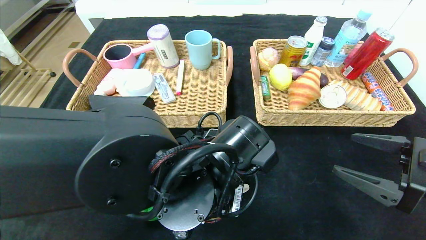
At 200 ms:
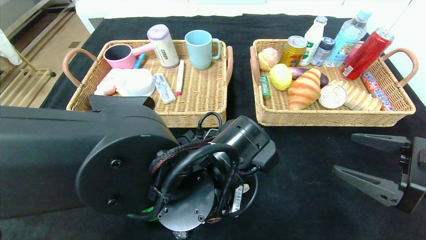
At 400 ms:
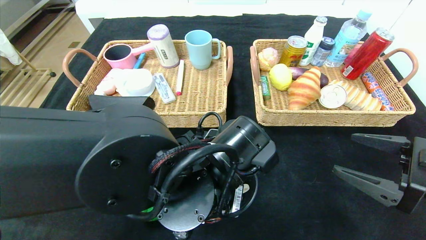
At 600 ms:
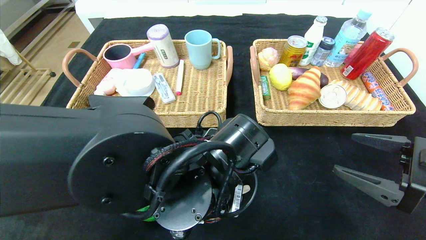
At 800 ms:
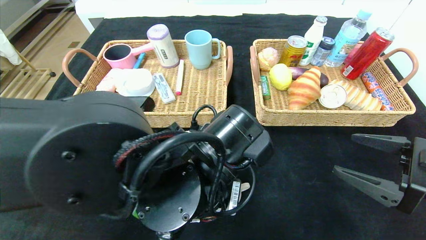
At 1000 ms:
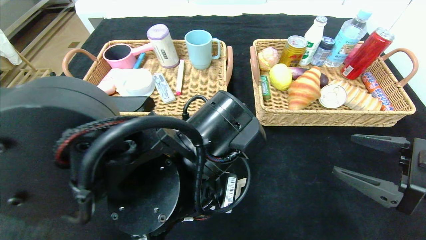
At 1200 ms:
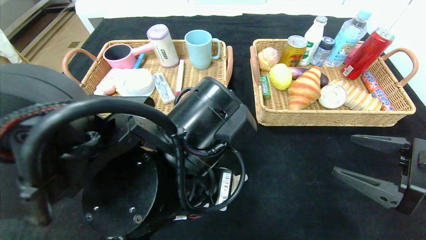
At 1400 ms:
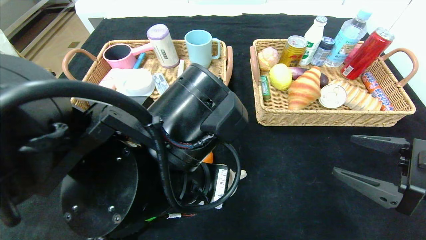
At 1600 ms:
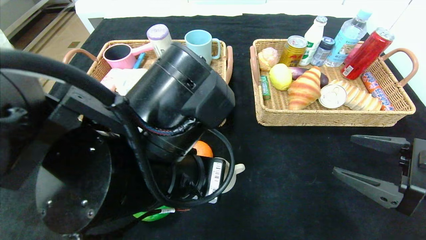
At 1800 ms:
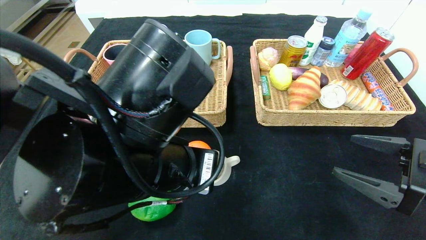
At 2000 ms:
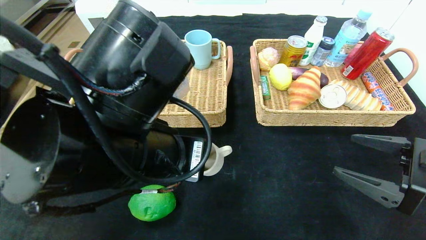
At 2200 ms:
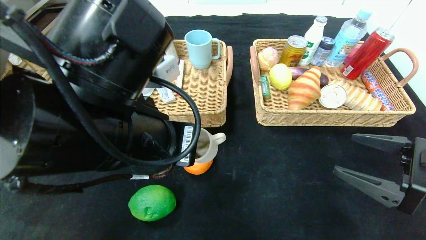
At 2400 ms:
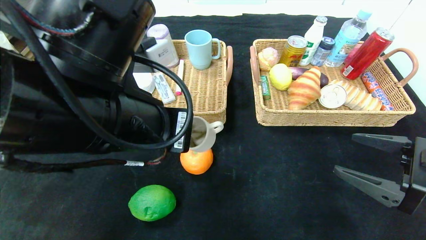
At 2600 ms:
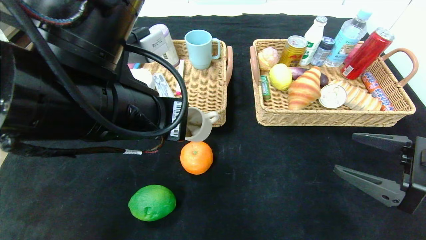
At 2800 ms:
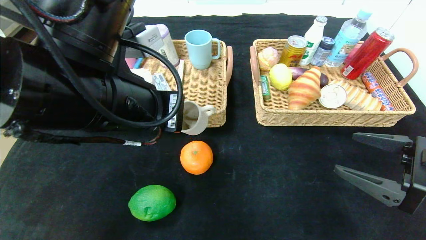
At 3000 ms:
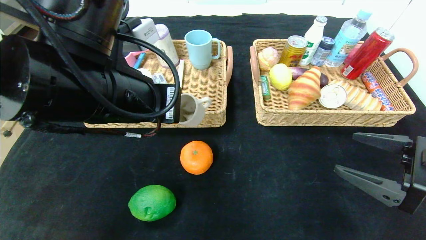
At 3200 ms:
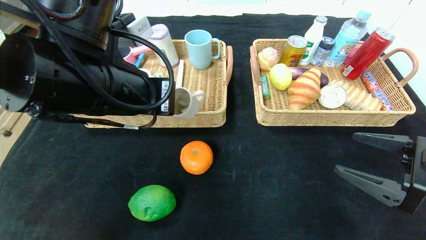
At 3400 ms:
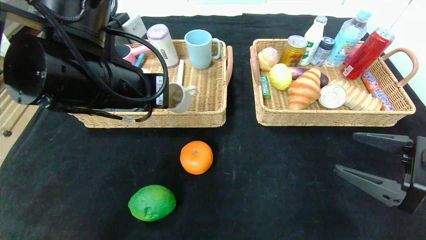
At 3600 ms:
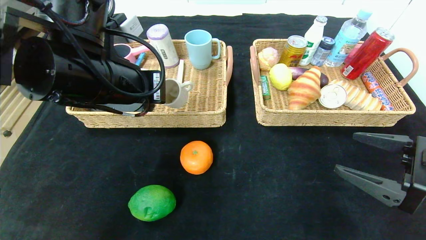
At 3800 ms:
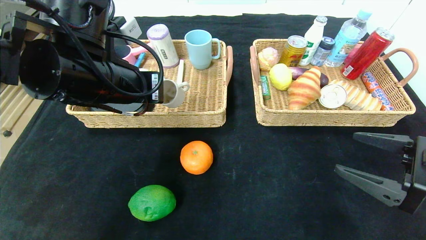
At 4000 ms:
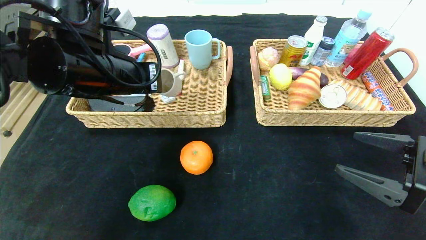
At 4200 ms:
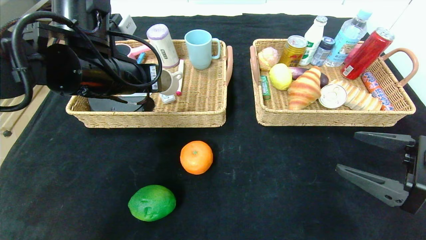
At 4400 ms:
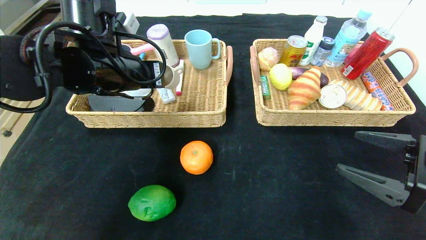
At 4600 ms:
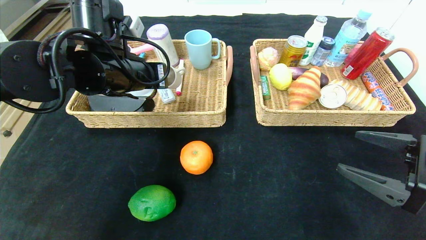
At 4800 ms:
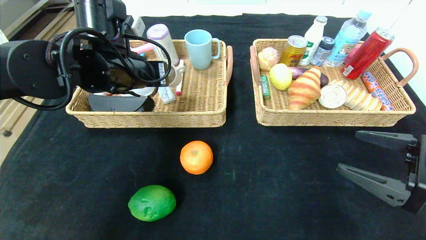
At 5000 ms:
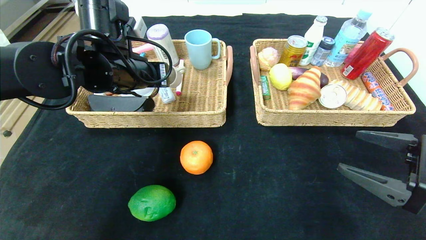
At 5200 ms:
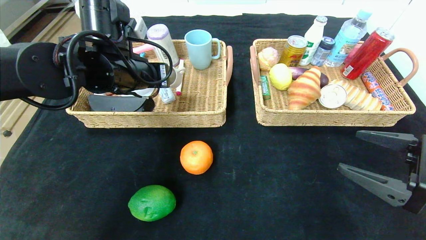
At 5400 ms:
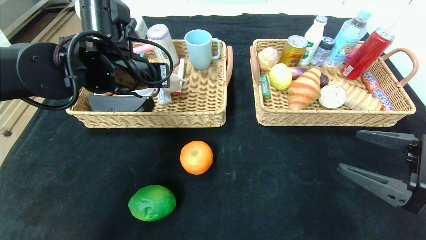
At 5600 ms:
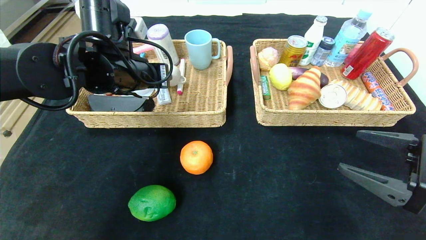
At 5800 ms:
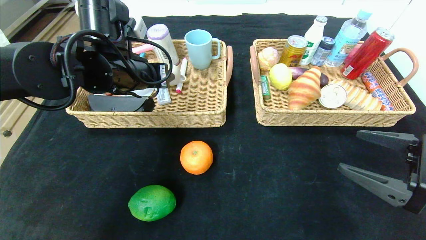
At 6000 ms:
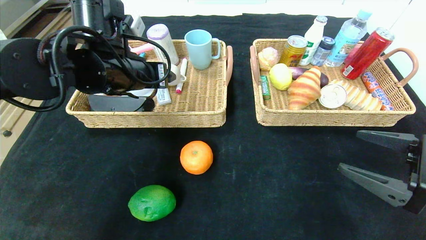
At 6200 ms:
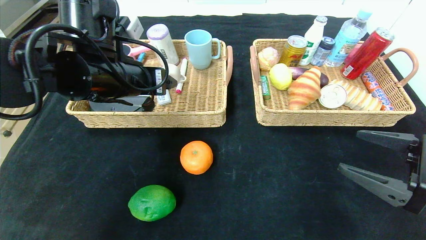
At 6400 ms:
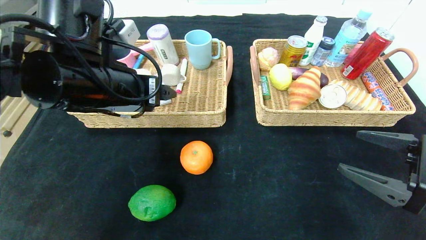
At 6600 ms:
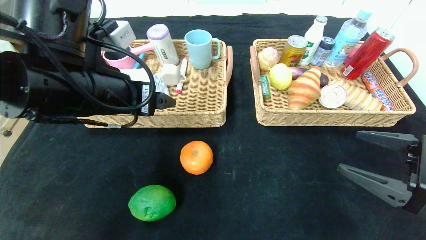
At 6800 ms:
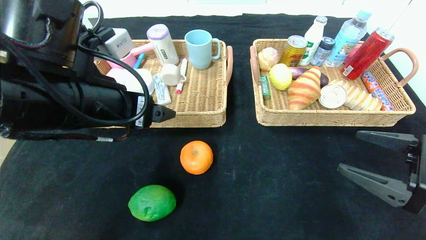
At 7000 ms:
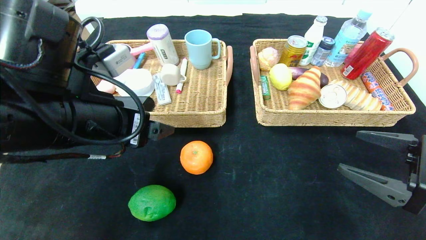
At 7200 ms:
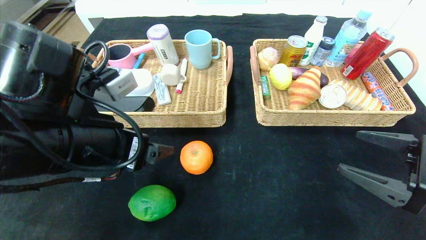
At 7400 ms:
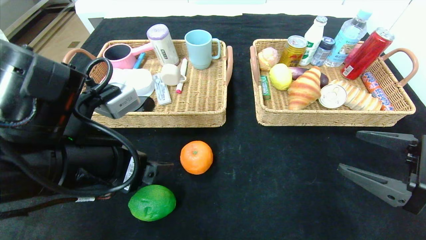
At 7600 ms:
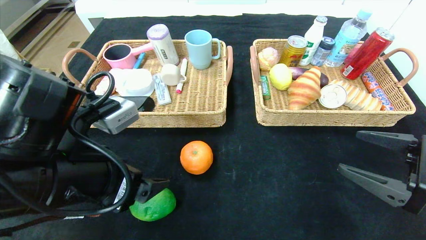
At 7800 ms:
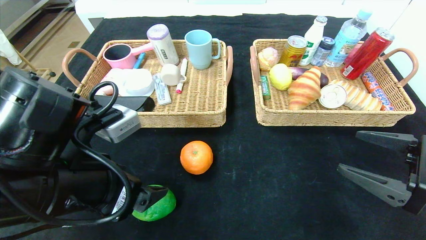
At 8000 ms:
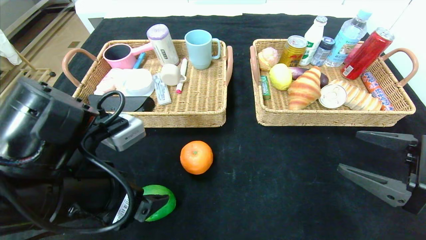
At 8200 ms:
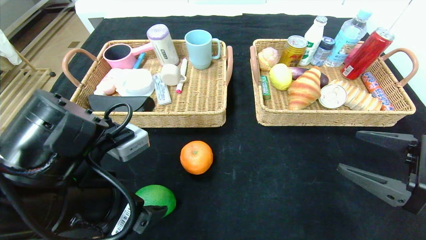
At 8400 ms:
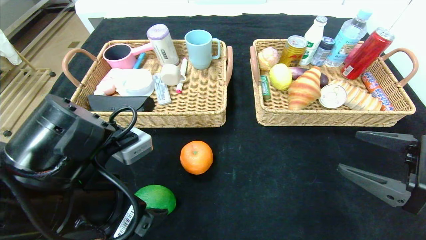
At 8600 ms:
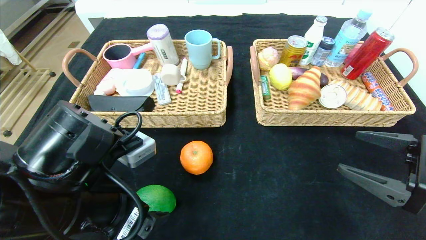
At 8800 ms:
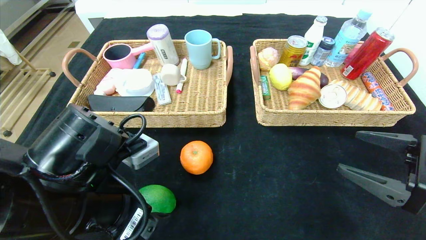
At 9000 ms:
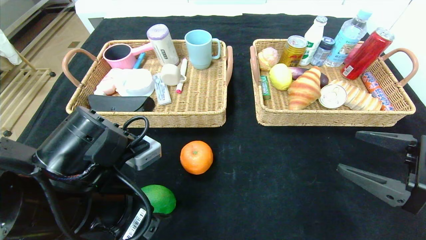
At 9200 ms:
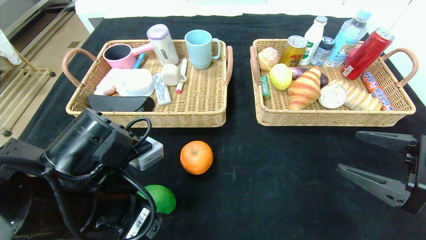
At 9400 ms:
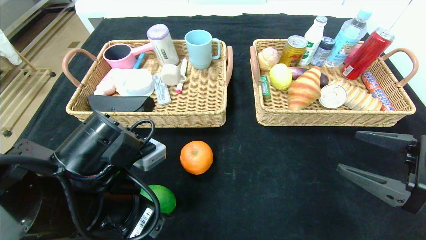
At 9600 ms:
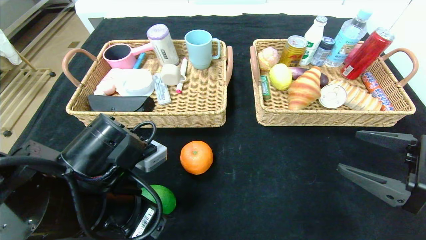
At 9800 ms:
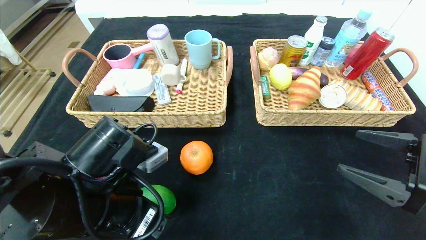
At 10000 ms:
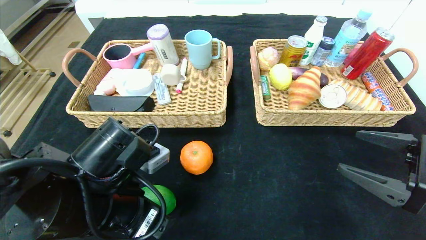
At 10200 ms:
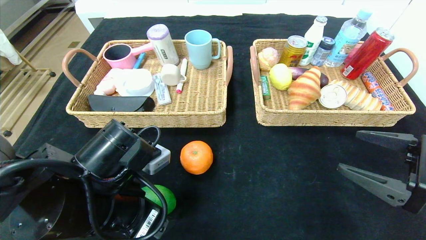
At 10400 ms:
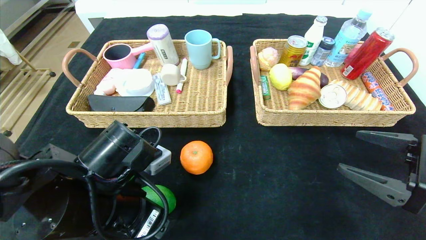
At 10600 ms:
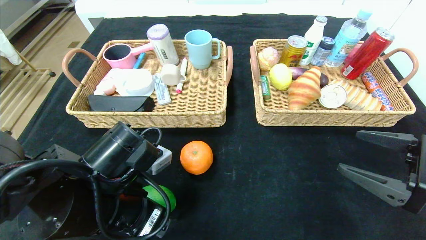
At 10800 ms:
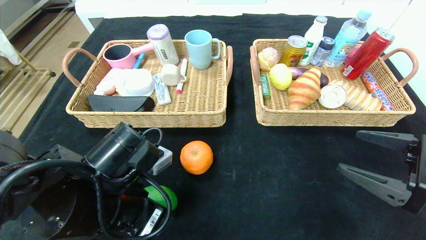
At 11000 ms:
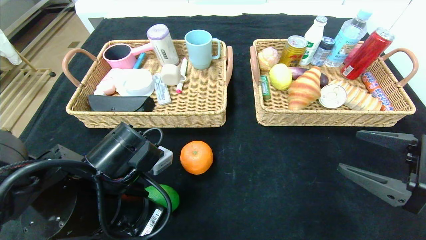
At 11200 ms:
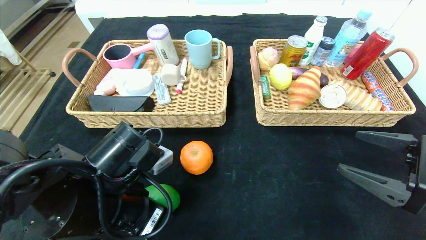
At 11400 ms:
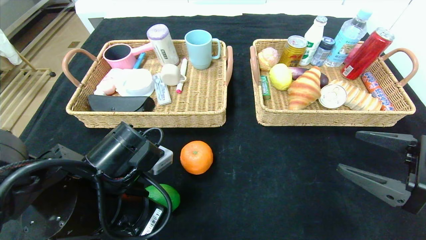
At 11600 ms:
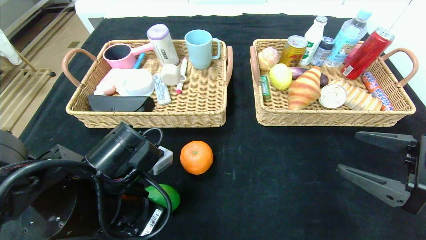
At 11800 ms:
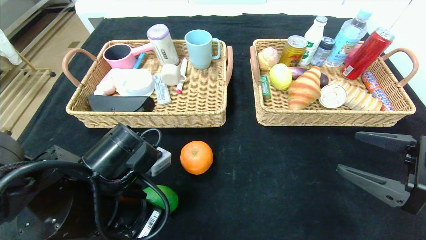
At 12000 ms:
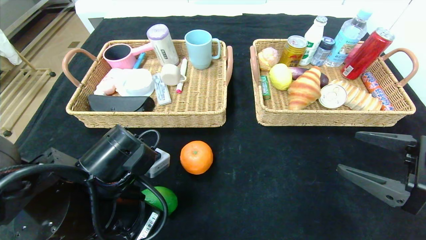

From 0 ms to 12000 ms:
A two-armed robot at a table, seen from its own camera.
Step, from 0 ms to 5800 ms: Grasp the grey cup and put it in the left basket.
From 0 ms to 1600 ms: The left gripper is displaced upward by some 5 cm.
From 1600 ms to 3000 ms: The left gripper moves to the left, upward and forward, about 10 cm.
From 3000 ms to 4400 ms: The left gripper goes some 10 cm forward.
From 4400 ms to 6000 ms: The left gripper opens.
From 6000 ms to 7600 ms: The left gripper heads backward, covering roughly 15 cm.
From 7600 ms to 9000 ms: The grippers stay close to where they were, moving slightly.
From 9000 ms to 10400 ms: The grippers make only small movements.
From 10400 ms to 12000 ms: The left gripper closes its fingers.

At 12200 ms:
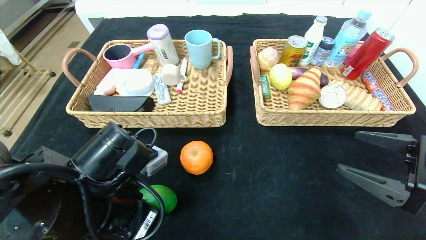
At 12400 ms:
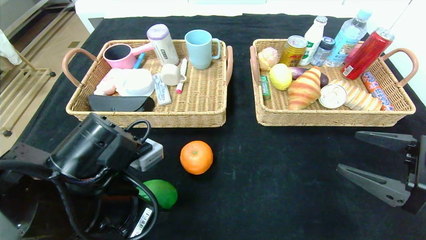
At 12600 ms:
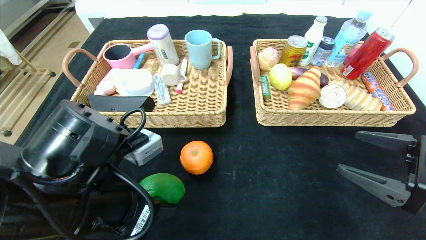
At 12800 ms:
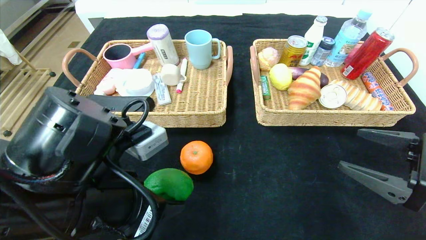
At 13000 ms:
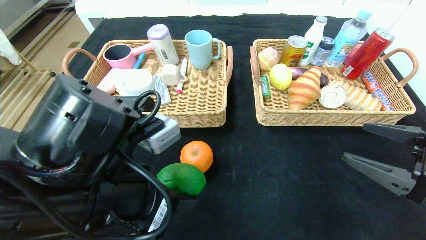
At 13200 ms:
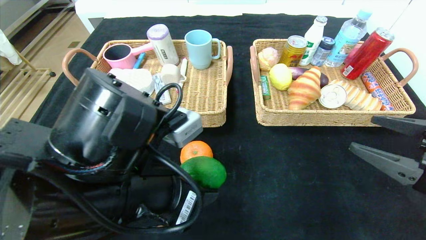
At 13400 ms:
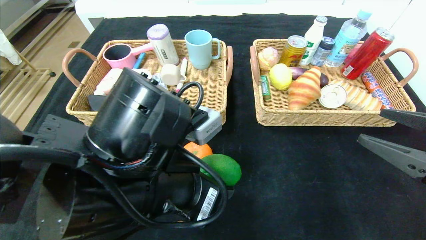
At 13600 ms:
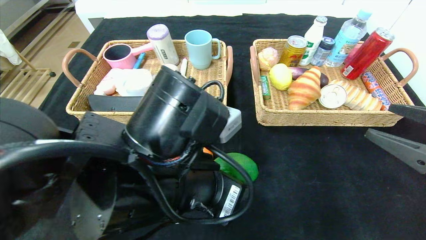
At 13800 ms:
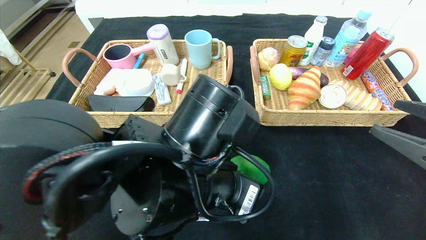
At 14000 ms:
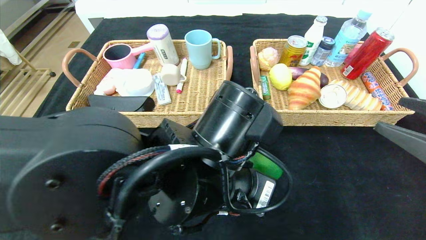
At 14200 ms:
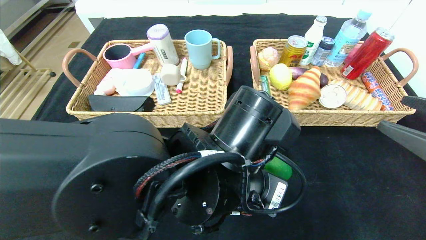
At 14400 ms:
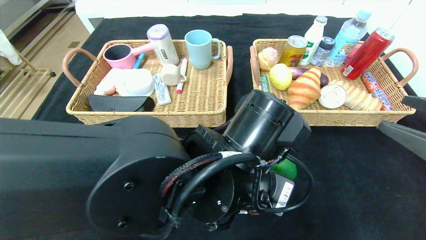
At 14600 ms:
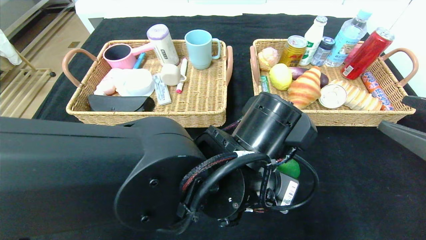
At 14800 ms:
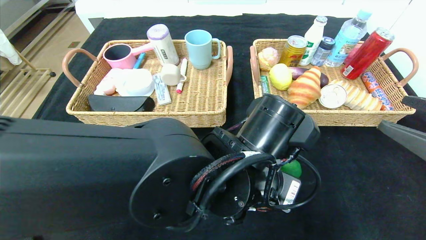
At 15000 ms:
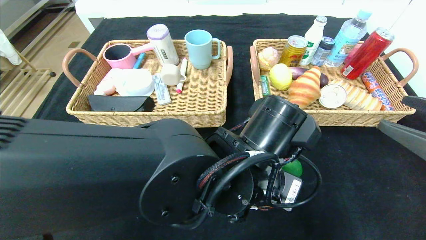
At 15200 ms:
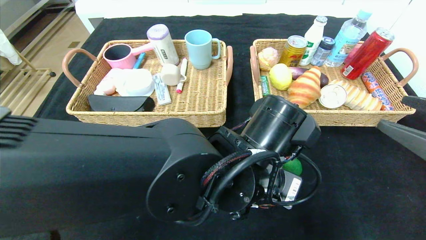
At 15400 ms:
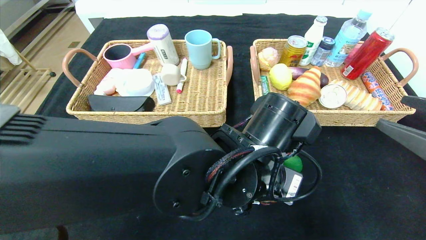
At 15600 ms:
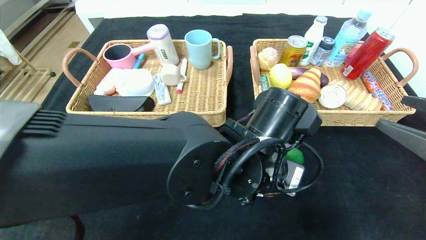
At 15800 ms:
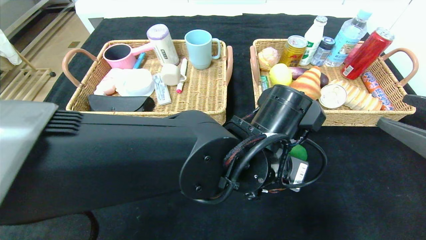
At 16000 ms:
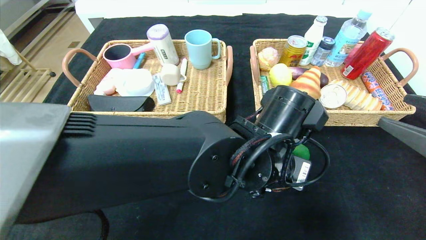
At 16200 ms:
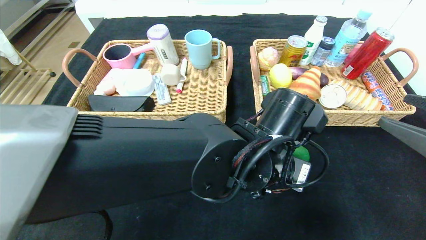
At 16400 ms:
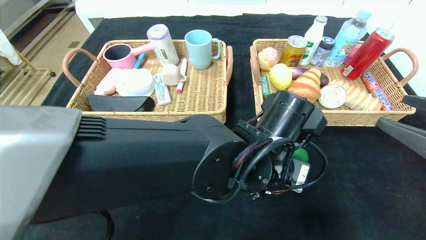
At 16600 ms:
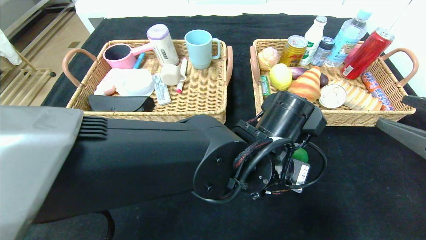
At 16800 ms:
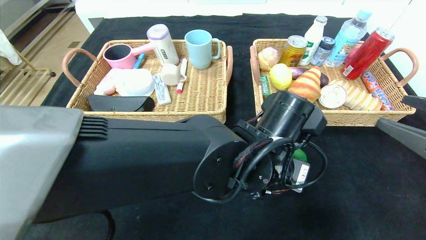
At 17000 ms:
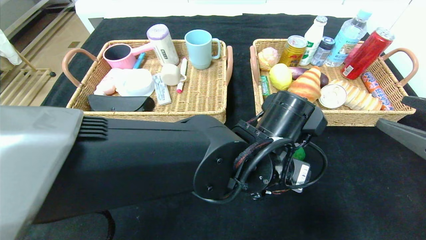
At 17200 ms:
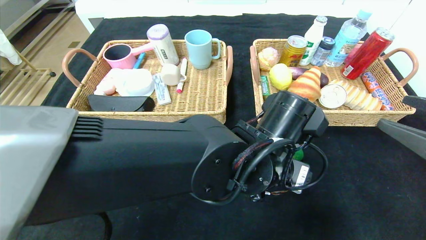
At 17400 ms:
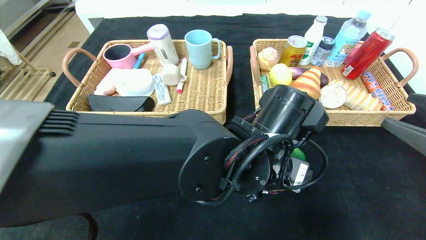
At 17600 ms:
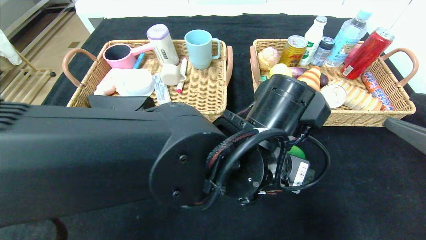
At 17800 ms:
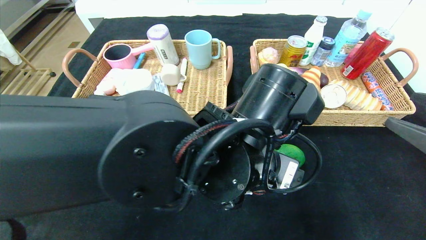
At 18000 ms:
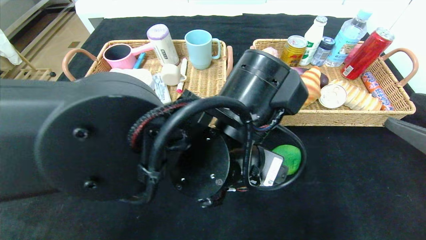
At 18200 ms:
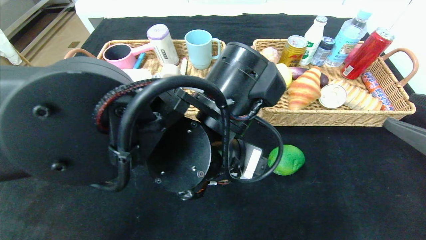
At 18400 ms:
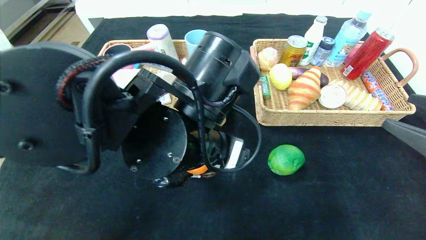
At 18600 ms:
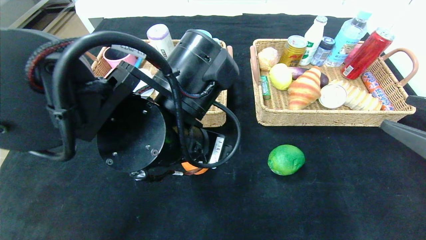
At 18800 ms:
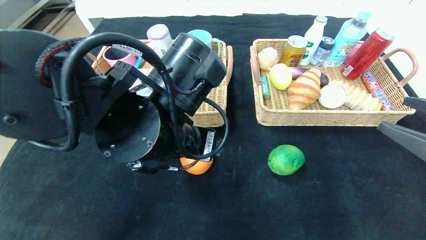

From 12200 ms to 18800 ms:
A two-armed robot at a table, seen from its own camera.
Step, from 12200 ms to 17400 ms: Place the green lemon in the center of the table.
From 12200 ms to 13800 ms: The left gripper heads to the right, covering approximately 10 cm.
From 13800 ms to 15400 ms: The left gripper travels to the right by about 5 cm.
From 15400 ms to 17200 ms: The grippers move only a little.
From 17200 ms to 18800 ms: The left gripper goes some 15 cm to the left and upward.
